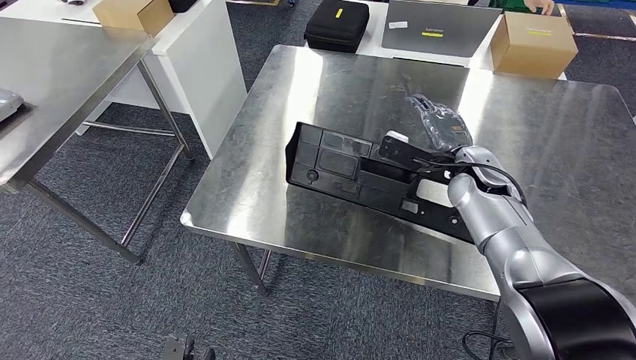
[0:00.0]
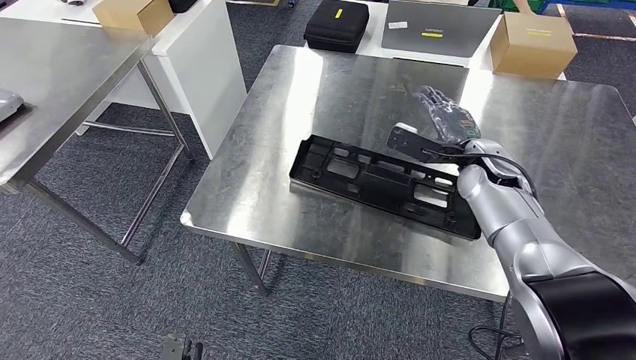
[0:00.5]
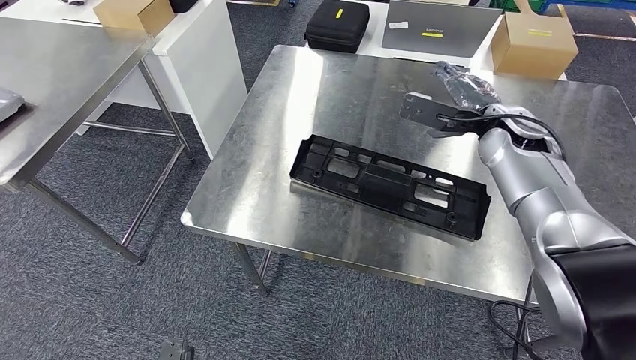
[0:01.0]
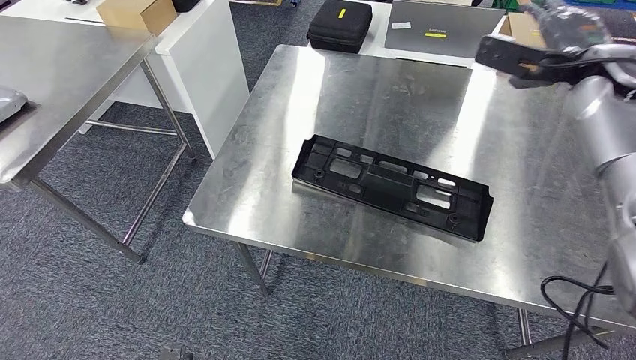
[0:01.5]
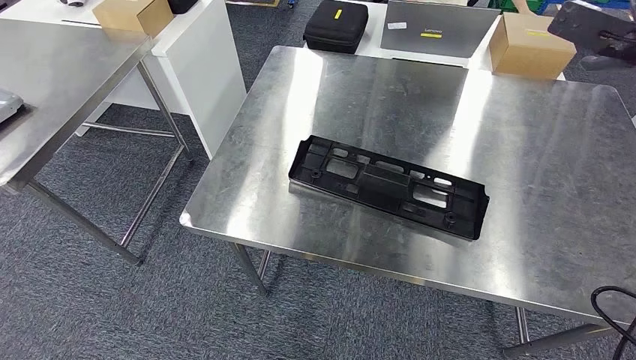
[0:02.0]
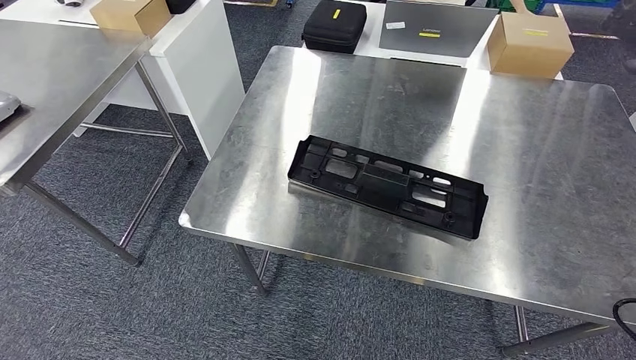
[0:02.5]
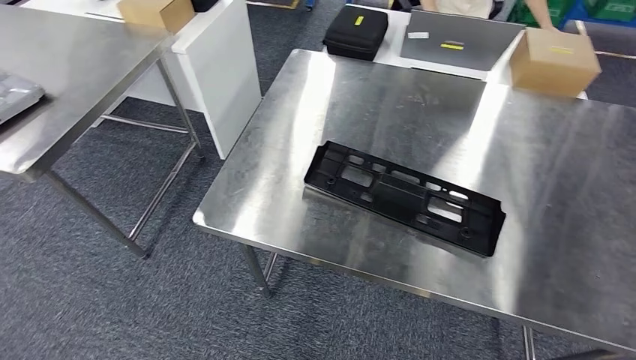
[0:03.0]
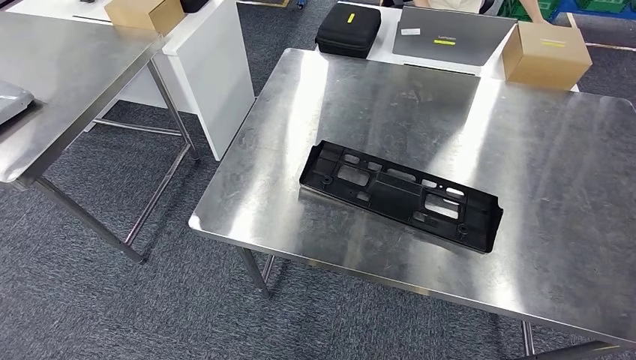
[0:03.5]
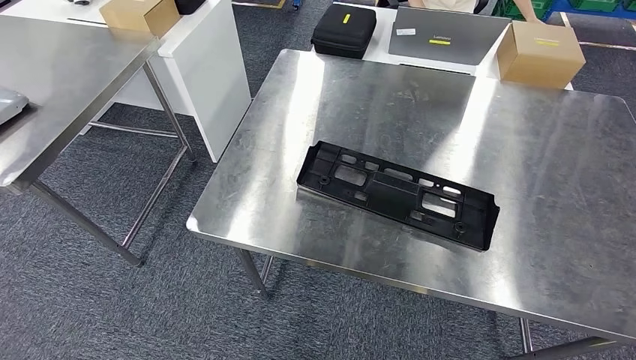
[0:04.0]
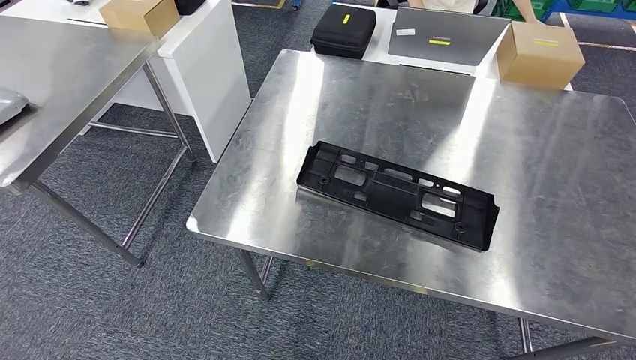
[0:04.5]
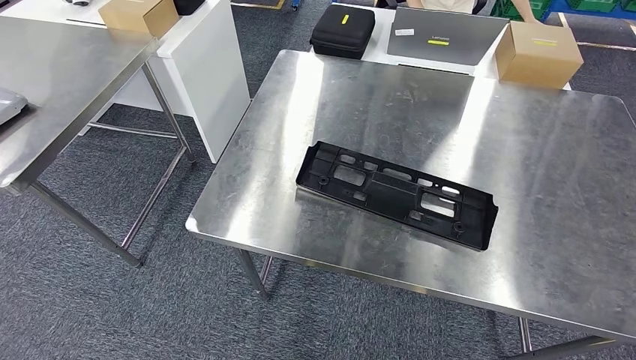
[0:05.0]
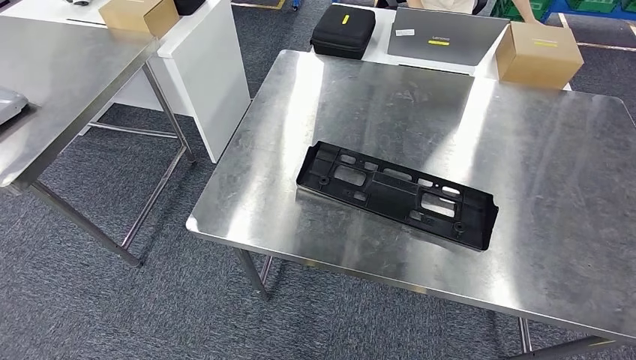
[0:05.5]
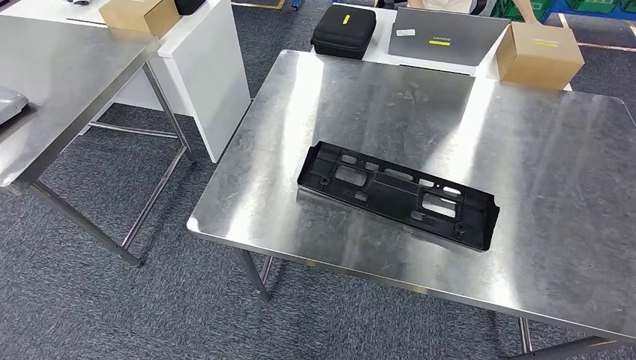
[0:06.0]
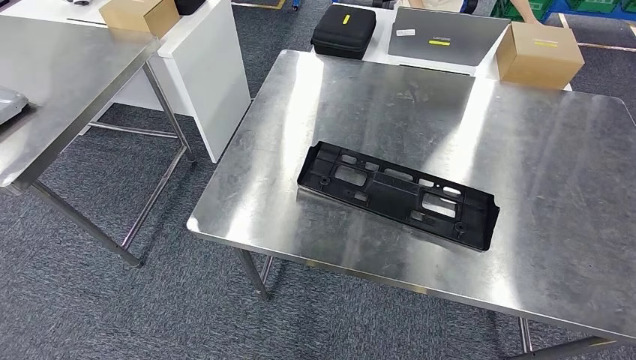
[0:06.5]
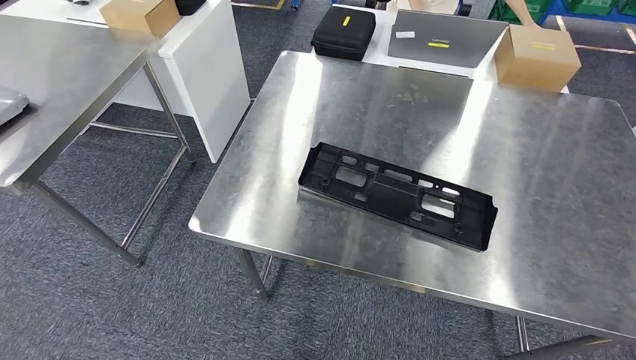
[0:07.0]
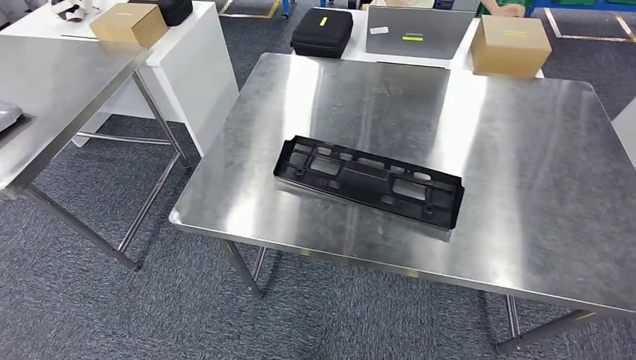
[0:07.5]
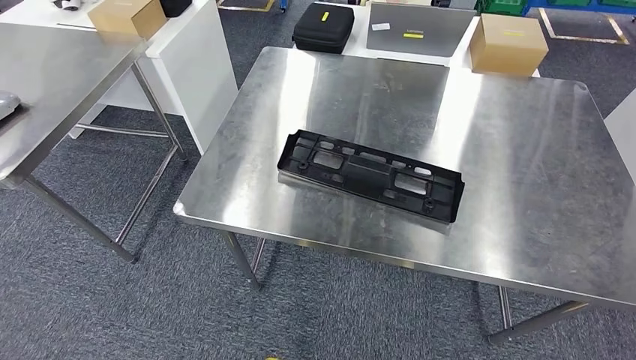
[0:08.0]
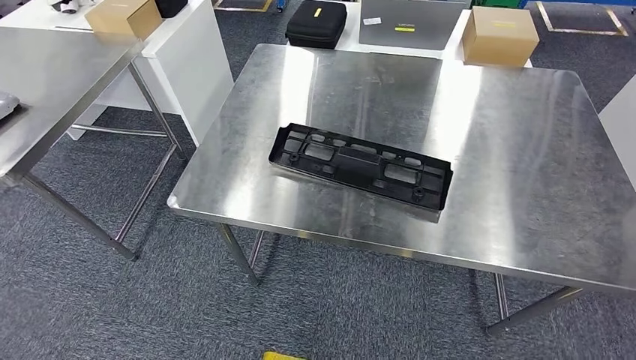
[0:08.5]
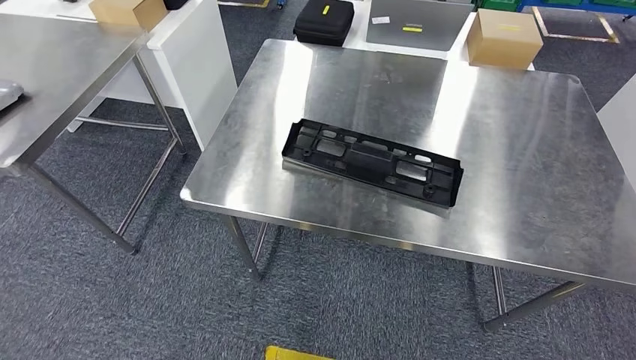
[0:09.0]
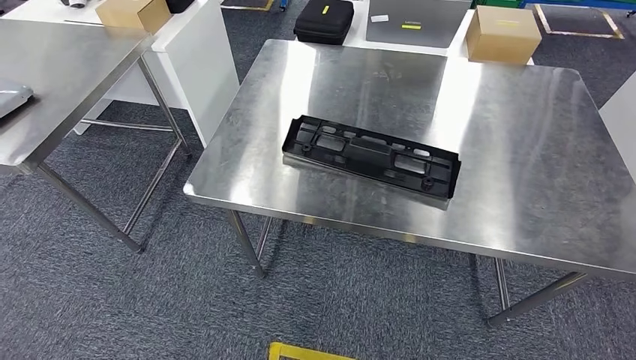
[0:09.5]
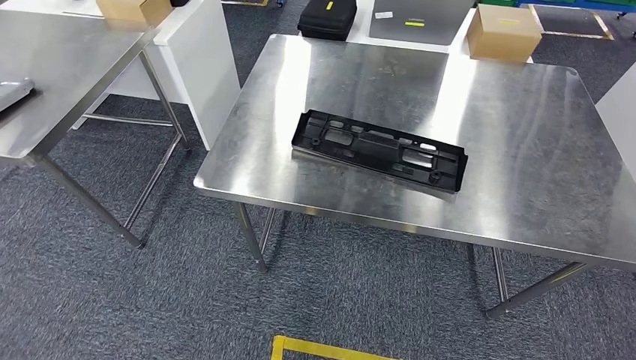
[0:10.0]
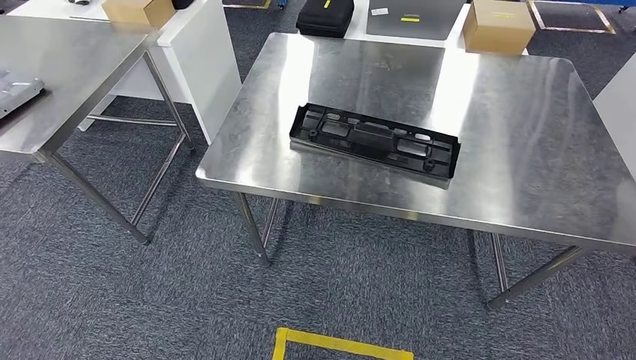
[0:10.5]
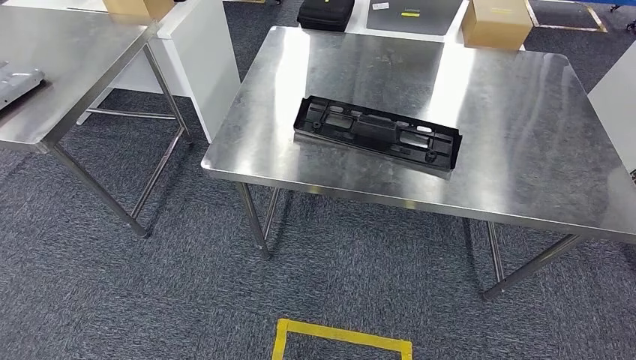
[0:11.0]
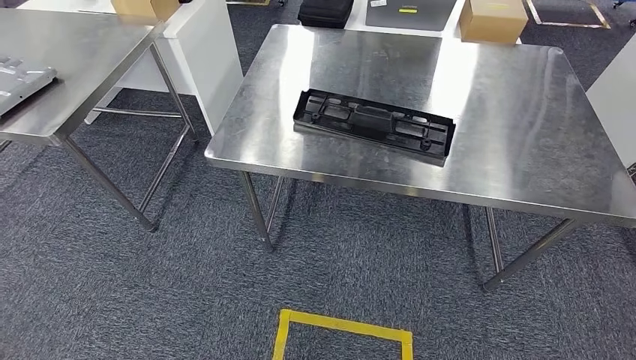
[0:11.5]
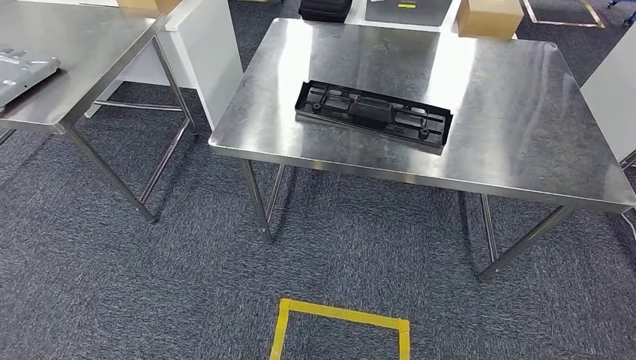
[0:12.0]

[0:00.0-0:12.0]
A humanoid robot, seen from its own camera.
0:00.0 to 0:02.0: The right hand heads upward and to the right, covering about 30 cm.
0:02.0 to 0:04.0: The right hand shifts about 60 cm backward, to the right and downward.
0:04.0 to 0:06.0: The right hand heads to the left and downward, covering some 50 cm.

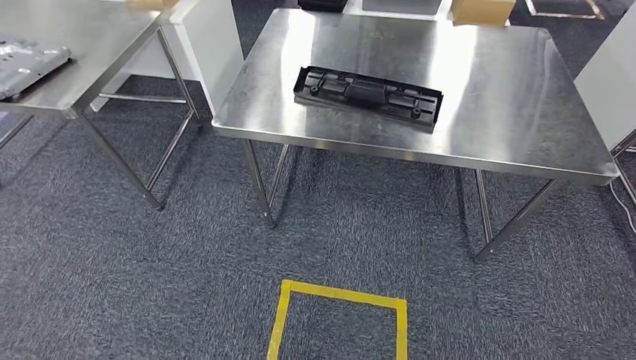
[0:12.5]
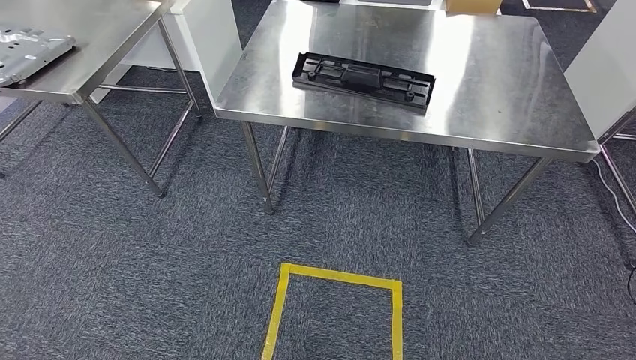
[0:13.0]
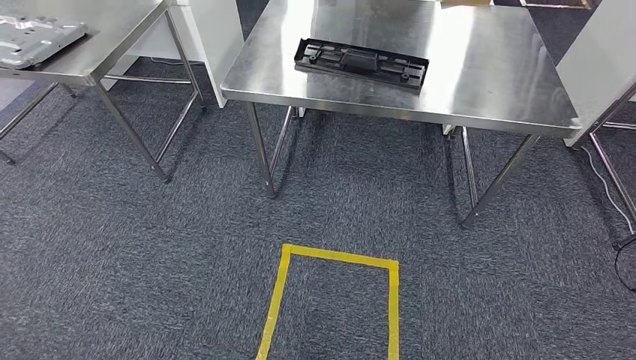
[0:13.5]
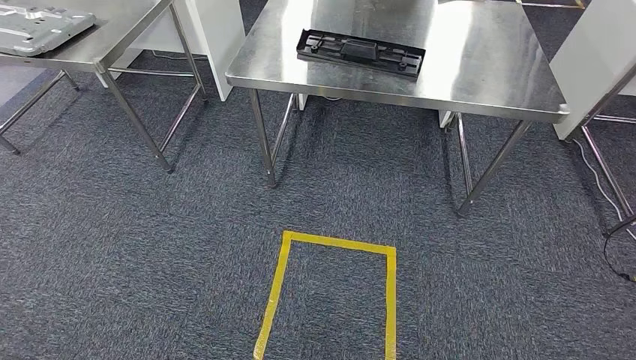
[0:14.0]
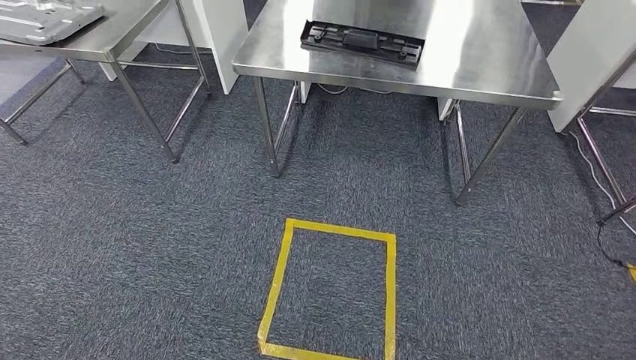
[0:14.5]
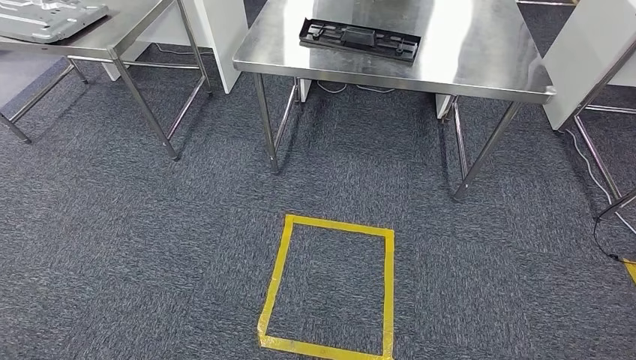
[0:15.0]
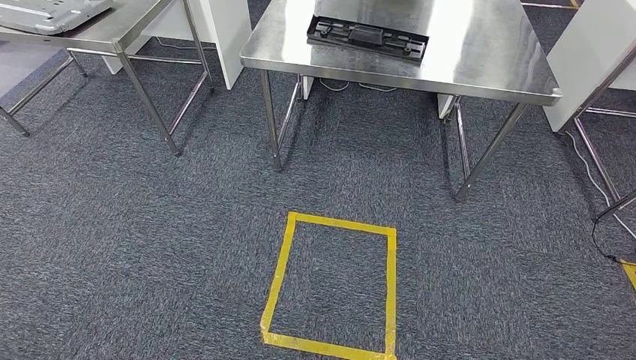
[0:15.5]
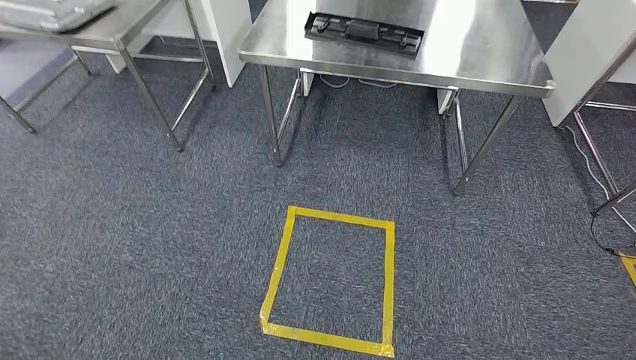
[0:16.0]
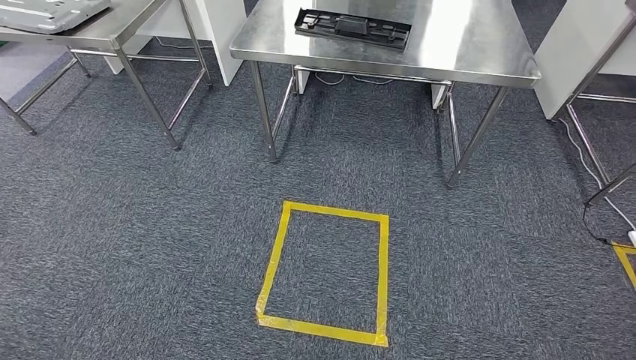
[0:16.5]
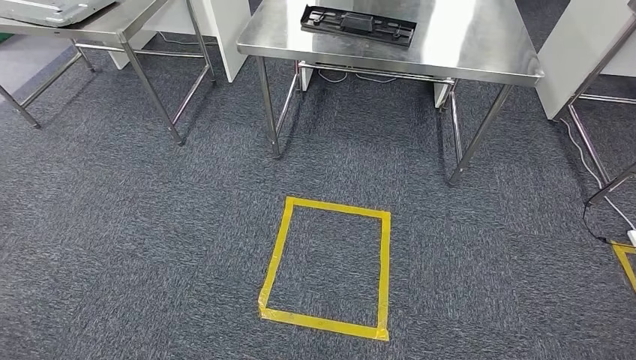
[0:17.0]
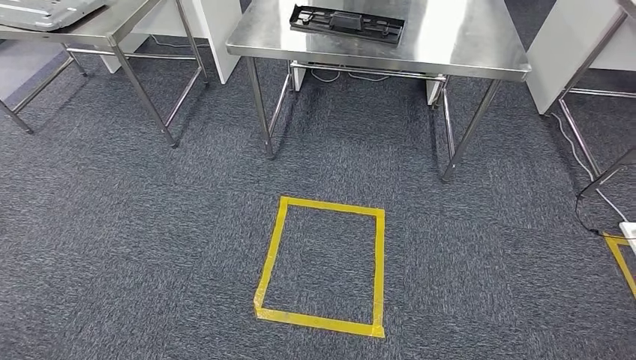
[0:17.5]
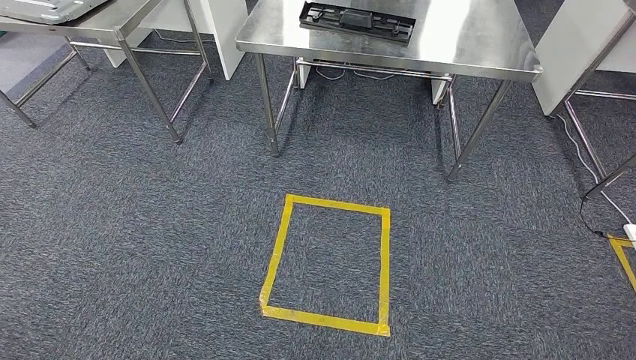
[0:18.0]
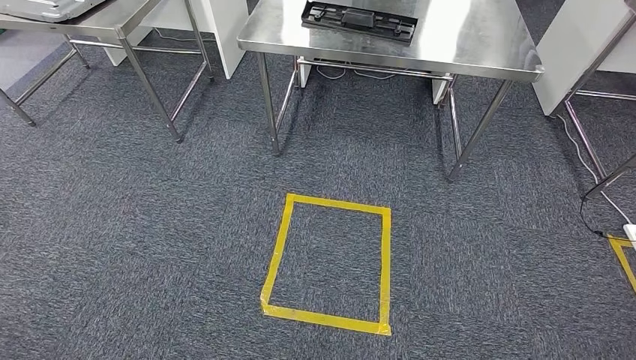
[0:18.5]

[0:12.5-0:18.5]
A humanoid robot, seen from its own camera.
Step, 0:12.5 to 0:18.5: Return to the initial position at the shelf.
0:14.5 to 0:18.5: Neither hand changes place.

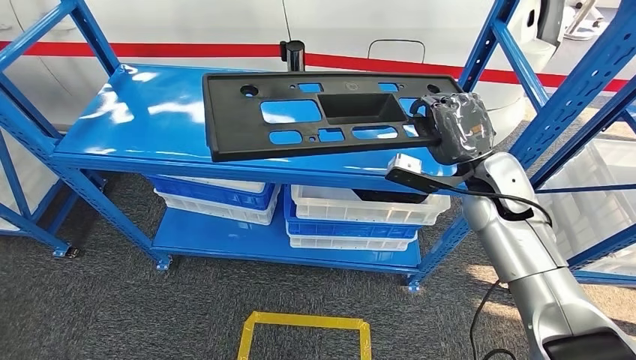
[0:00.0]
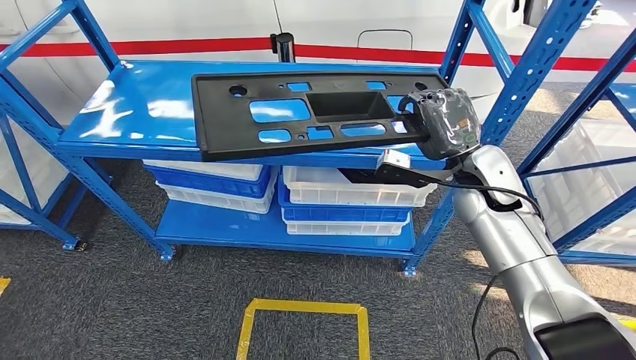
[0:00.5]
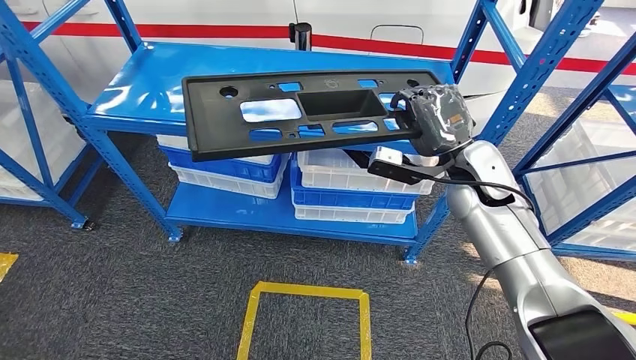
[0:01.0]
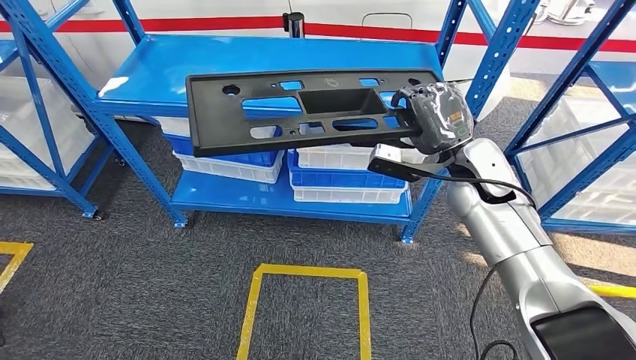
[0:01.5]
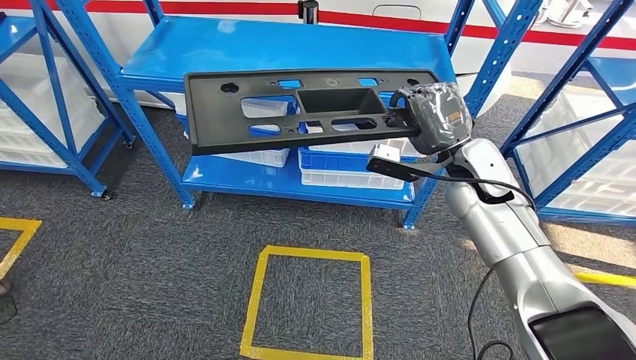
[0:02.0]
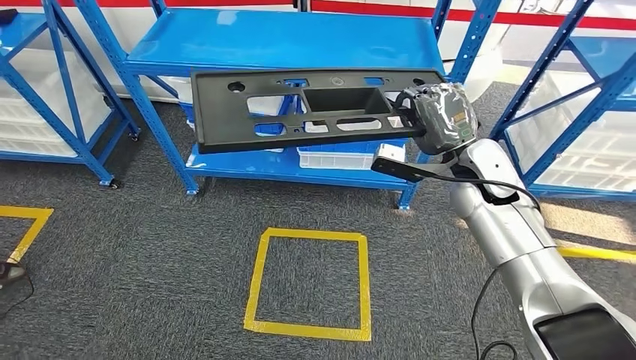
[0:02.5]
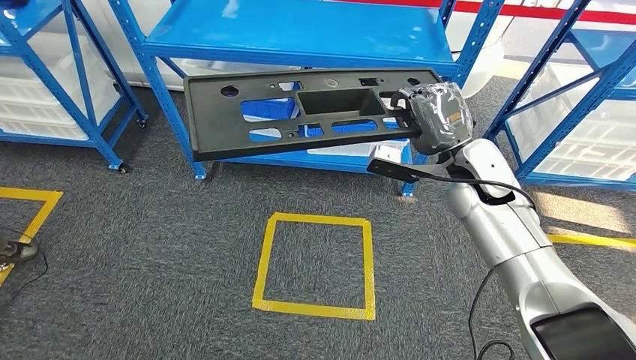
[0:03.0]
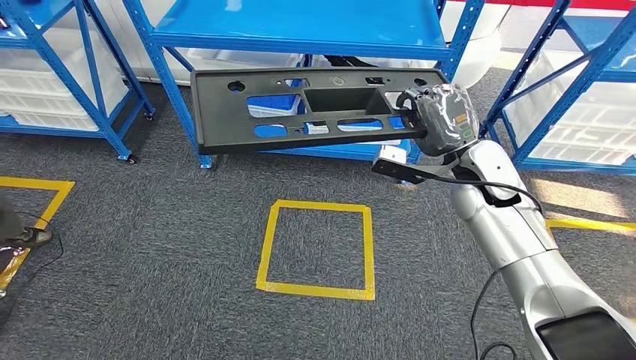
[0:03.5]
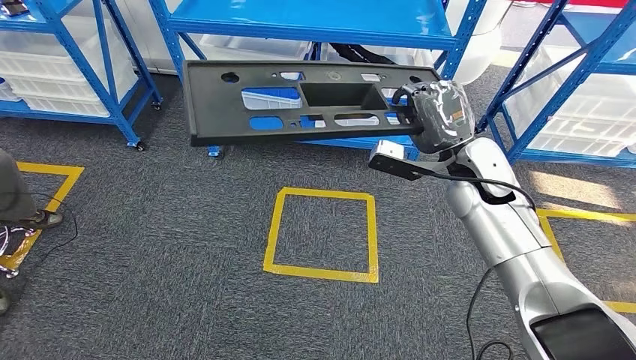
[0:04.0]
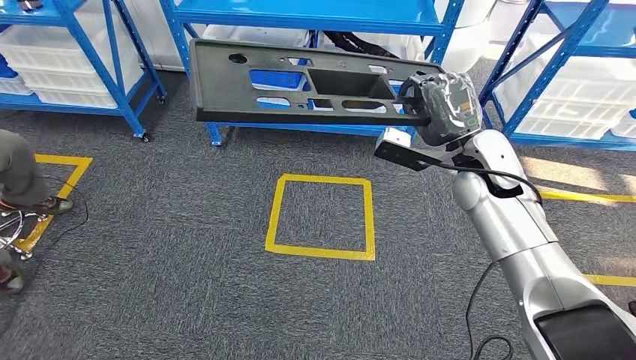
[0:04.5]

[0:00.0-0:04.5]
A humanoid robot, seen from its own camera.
Step, 0:00.0 to 0:03.0: Pick up the large material from the shelf.
